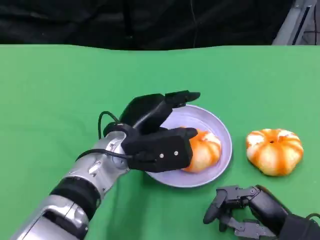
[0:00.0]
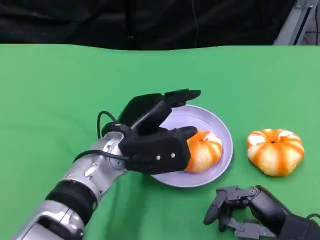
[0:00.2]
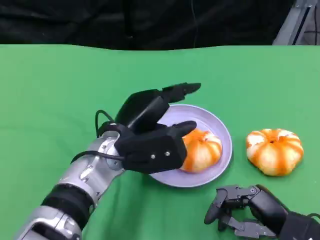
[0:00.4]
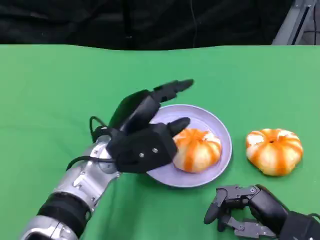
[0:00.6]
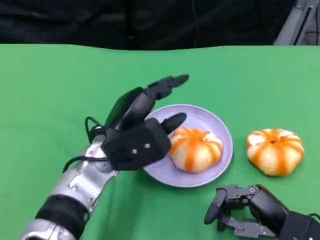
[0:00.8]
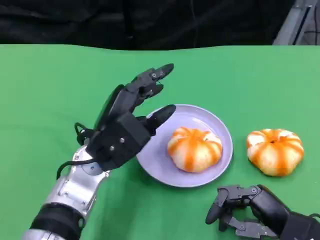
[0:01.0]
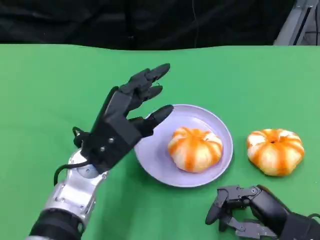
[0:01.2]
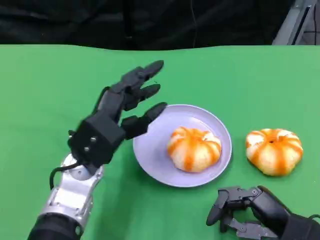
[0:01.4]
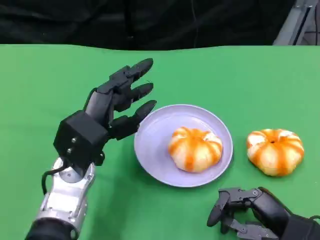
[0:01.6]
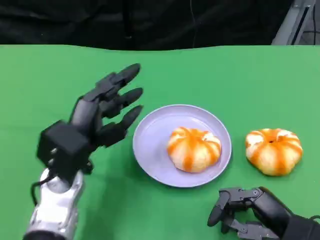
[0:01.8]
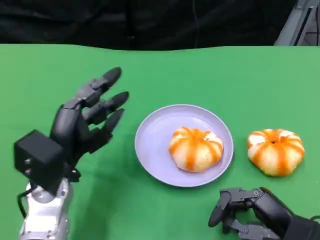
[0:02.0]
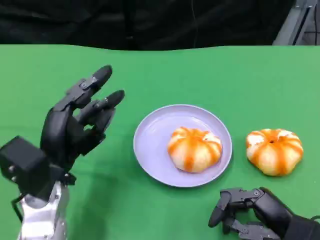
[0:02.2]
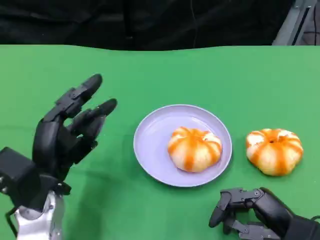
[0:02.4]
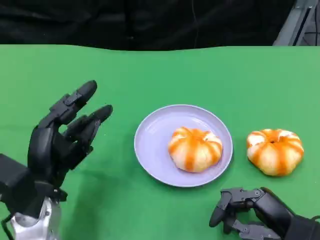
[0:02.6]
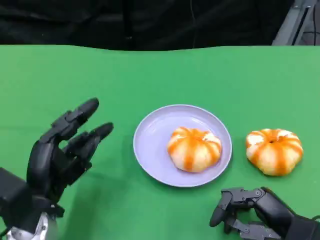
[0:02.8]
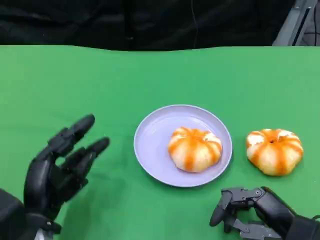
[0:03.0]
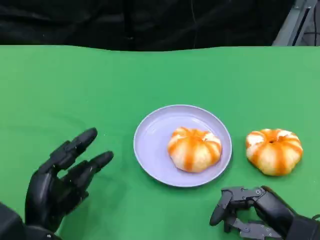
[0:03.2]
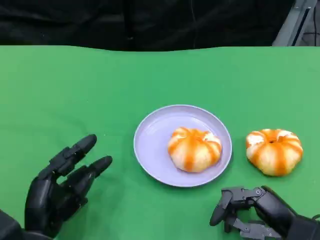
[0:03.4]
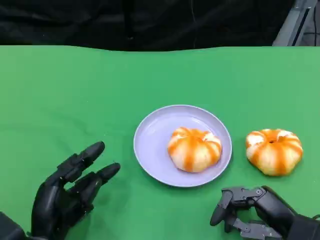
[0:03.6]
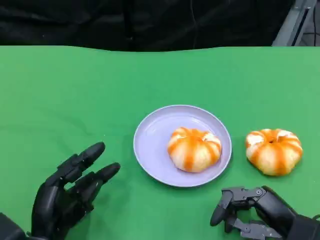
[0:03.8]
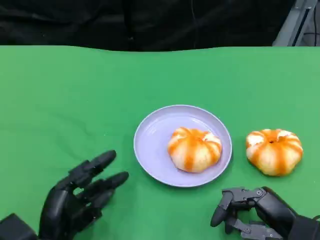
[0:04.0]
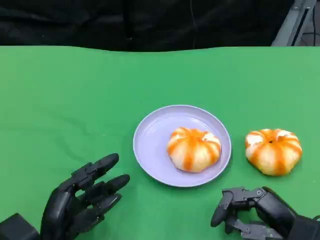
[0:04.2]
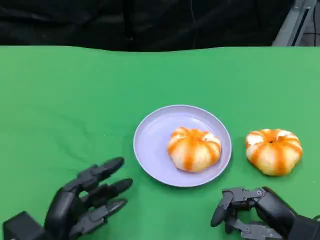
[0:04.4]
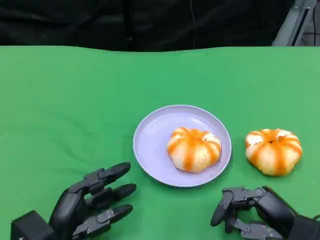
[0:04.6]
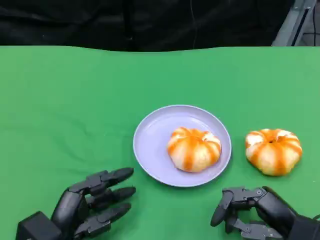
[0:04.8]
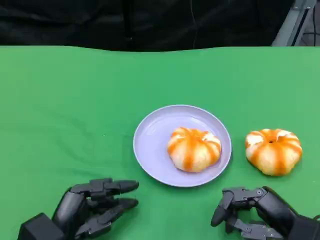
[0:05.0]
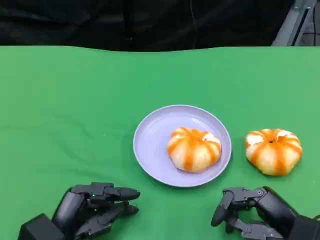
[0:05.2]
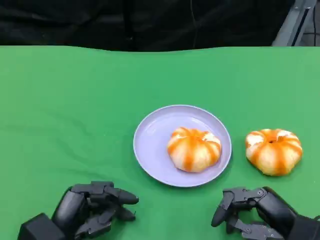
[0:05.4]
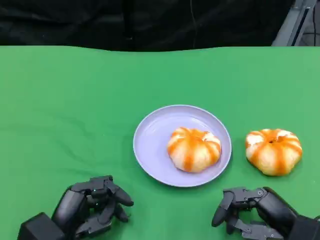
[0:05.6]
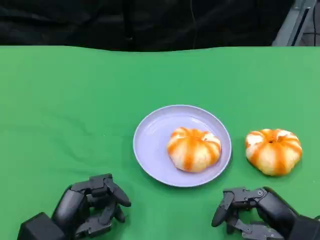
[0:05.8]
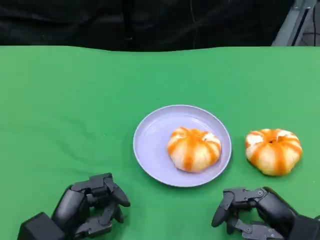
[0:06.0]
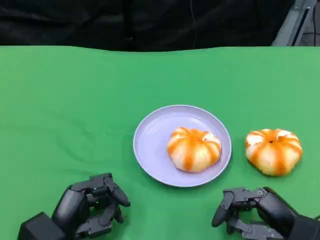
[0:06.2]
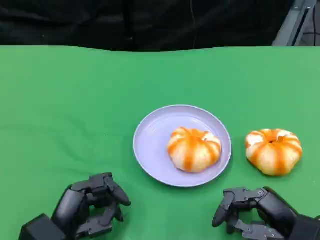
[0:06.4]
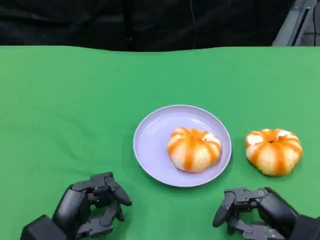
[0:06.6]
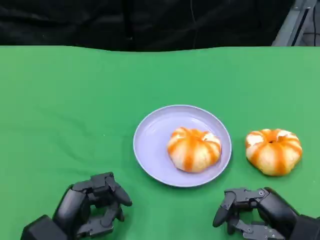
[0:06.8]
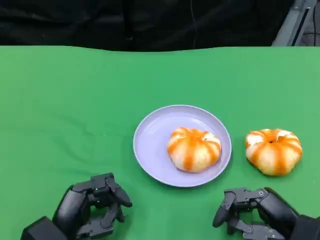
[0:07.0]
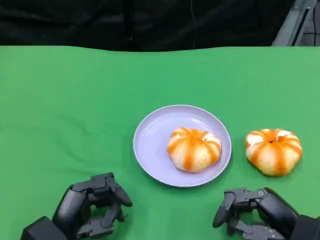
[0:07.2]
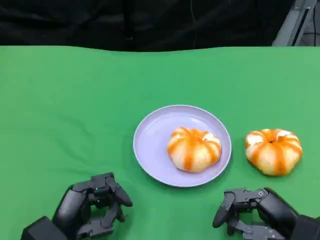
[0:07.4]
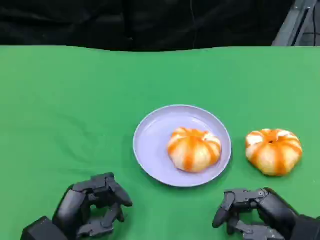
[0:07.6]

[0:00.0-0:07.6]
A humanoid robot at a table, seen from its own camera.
Task of the whole recording: Grasp the bread from the table and place it into the plate.
0:00.0 to 0:01.6: The left hand moves to the left, approximately 5 cm.
0:01.6 to 0:03.0: The left hand heads backward, downward and to the left, covering some 10 cm.
0:03.0 to 0:06.0: The hands stay close to where they were, moving slightly.
0:06.0 to 0:07.6: Both hands stay about where they are.

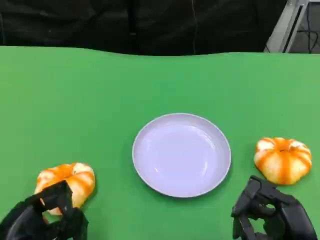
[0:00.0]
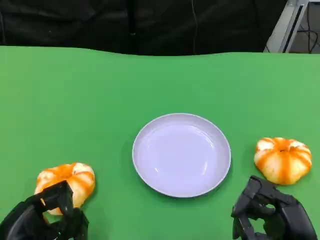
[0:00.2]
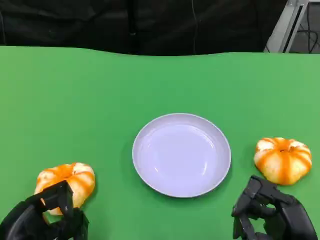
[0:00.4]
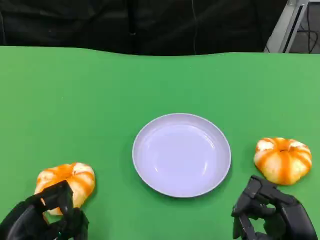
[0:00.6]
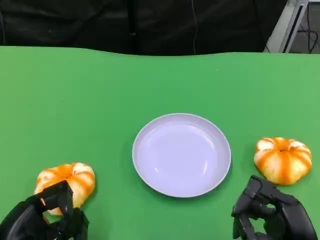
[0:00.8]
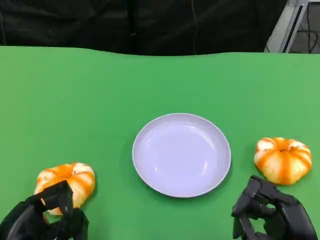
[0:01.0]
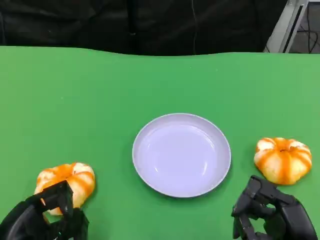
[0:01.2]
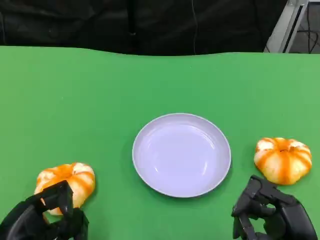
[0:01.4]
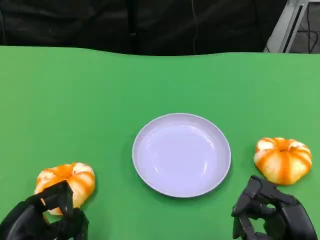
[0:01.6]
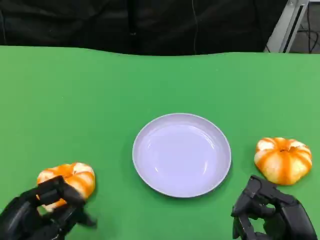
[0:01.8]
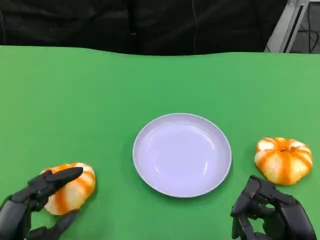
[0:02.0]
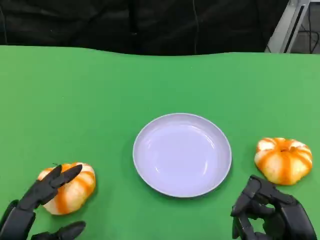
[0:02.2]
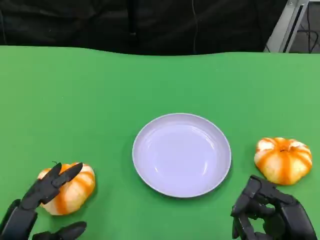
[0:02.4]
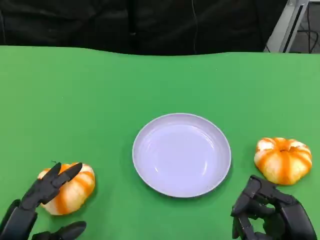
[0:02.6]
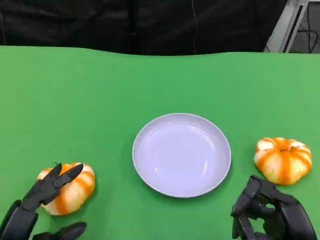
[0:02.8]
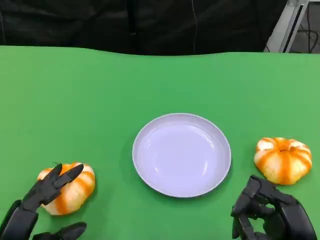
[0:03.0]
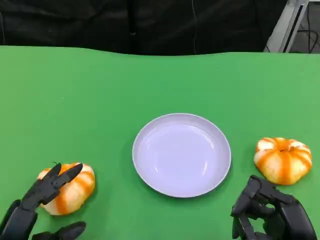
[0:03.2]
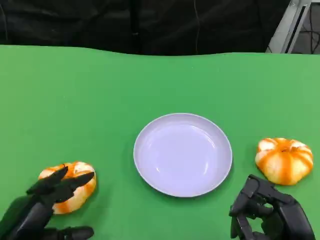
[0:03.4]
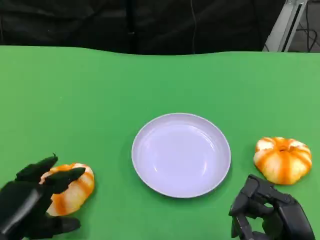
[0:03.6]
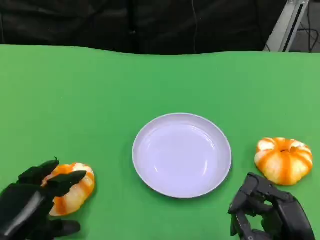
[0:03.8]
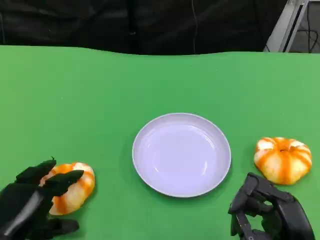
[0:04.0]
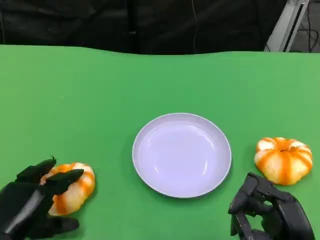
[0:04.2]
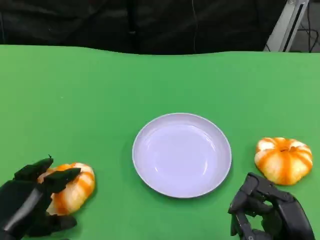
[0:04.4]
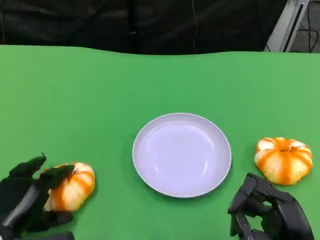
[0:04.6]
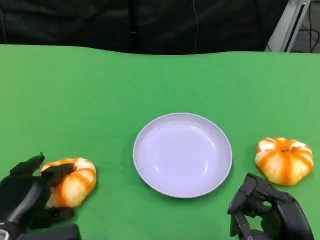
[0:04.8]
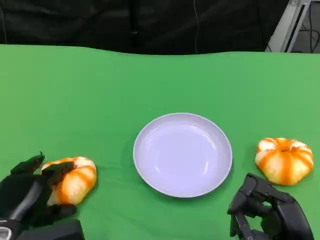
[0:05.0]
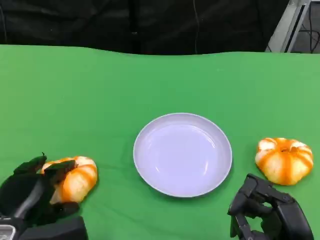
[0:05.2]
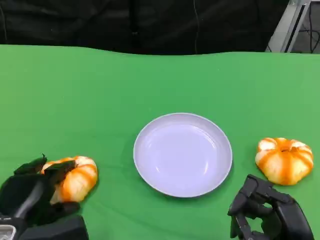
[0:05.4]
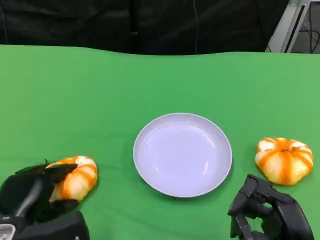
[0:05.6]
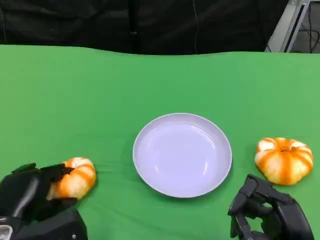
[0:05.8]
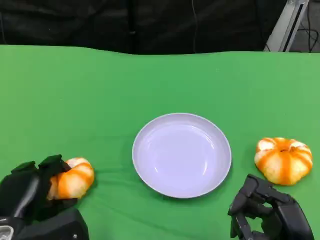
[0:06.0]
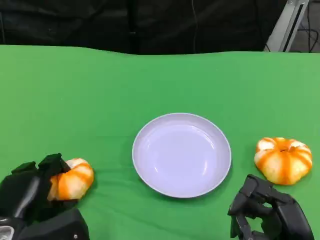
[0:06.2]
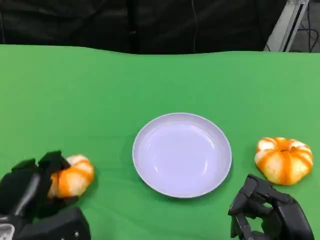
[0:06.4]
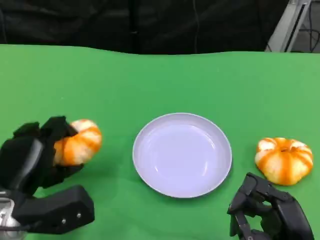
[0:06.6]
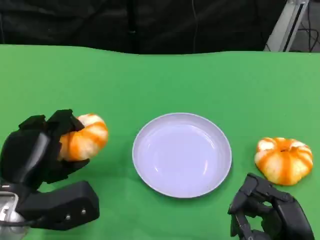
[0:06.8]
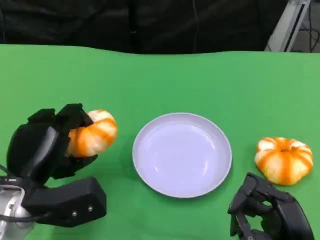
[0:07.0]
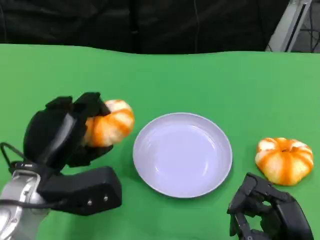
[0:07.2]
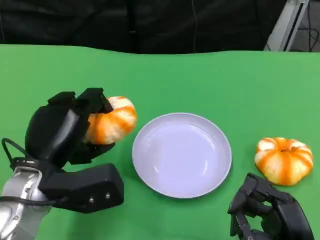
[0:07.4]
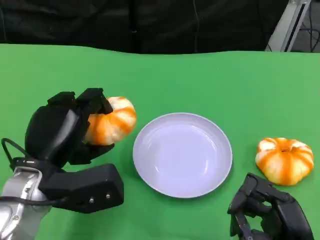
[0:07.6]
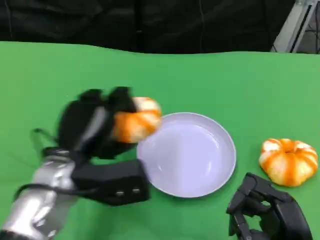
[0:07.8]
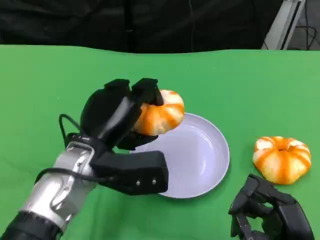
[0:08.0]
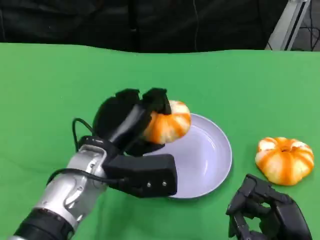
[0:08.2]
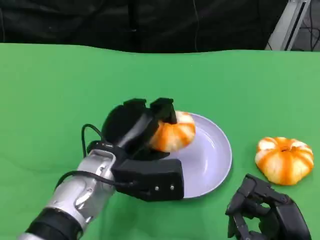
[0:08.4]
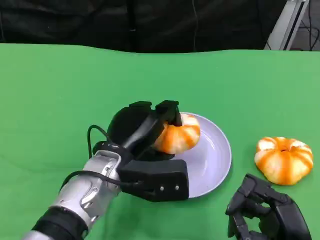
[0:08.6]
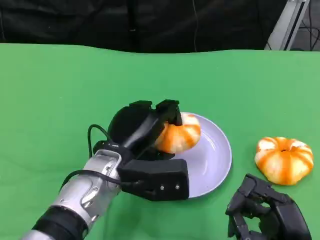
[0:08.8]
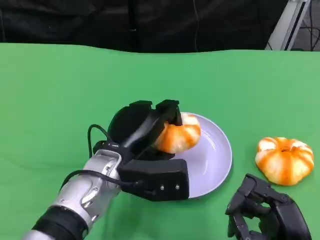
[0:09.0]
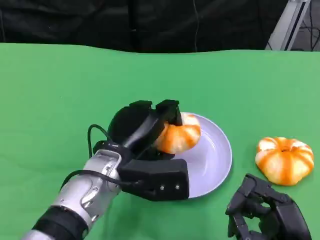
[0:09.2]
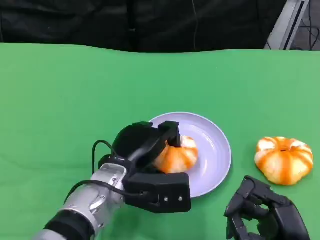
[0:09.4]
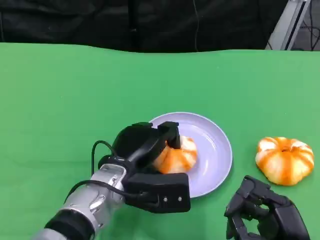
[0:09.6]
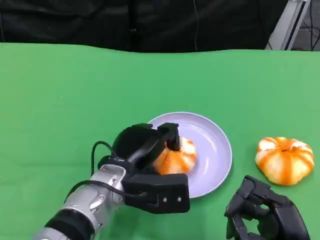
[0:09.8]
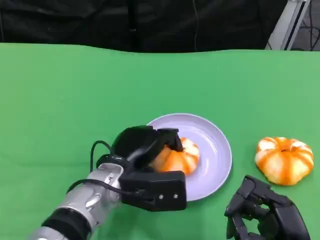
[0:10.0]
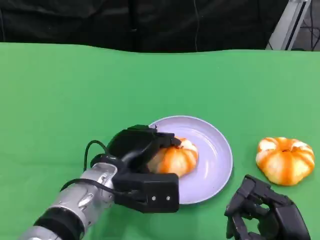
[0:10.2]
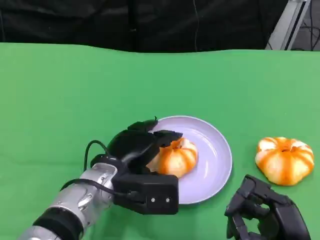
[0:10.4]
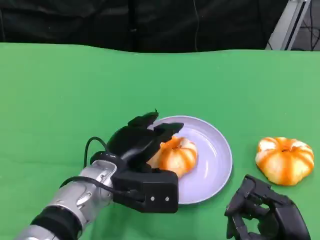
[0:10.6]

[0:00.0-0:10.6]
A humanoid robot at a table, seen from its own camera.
Task of the whole recording: Grasp the bread from the table and place it into the plate.
0:00.0 to 0:01.6: Both hands stay about where they are.
0:03.0 to 0:04.6: The left hand moves forward, roughly 5 cm.
0:04.6 to 0:06.0: The hands move only a little.
0:06.0 to 0:07.6: The left hand goes roughly 10 cm upward.
0:07.6 to 0:09.0: The left hand shifts approximately 10 cm to the right.
0:09.0 to 0:10.6: The hands move only a little.

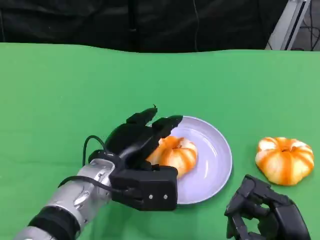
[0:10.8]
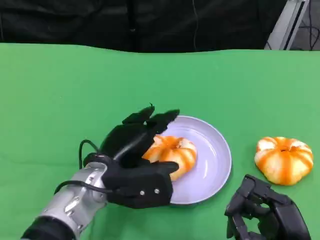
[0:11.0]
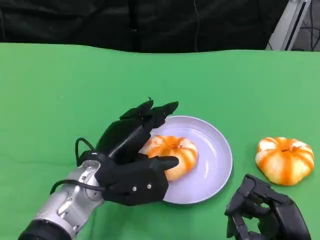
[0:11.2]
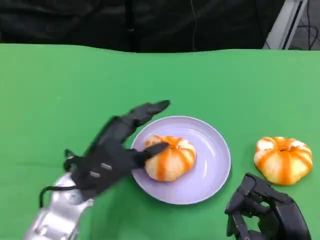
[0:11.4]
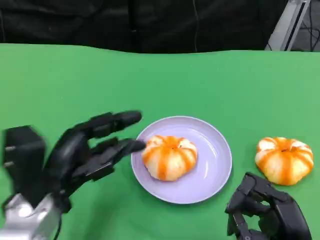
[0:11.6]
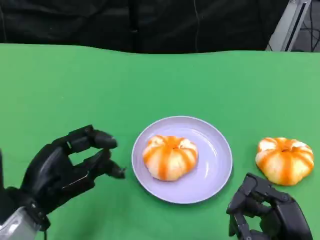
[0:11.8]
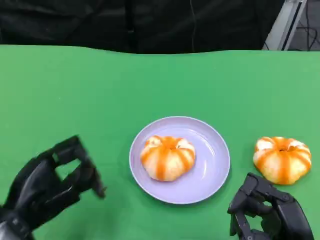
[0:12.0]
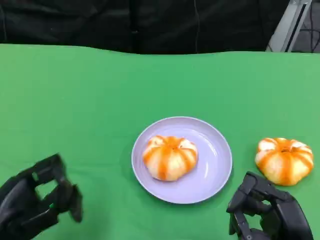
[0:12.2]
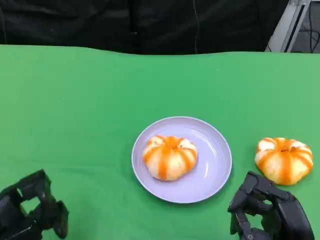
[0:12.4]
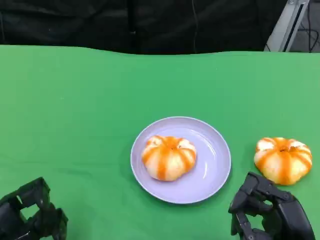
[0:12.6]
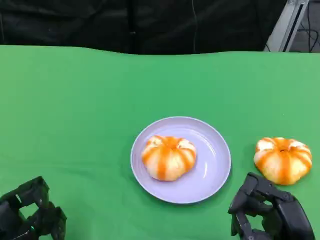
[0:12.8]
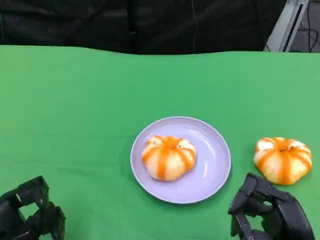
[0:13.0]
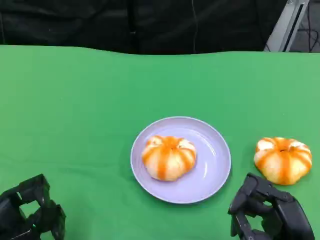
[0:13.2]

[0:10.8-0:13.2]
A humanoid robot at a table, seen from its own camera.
Task of the whole recording: Grasp the bread from the table and place it into the plate.
0:10.8 to 0:12.0: The left hand shifts some 15 cm to the left and backward.
0:12.0 to 0:13.2: The left hand ends up approximately 5 cm from where it was.

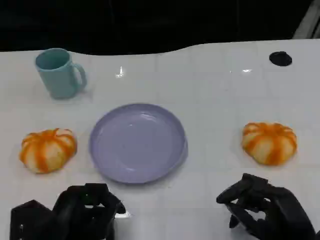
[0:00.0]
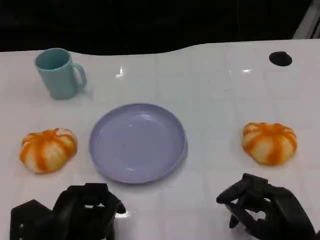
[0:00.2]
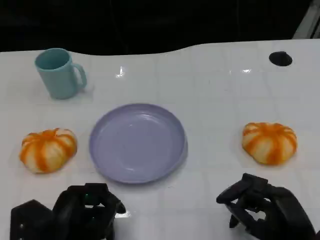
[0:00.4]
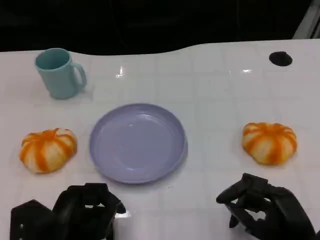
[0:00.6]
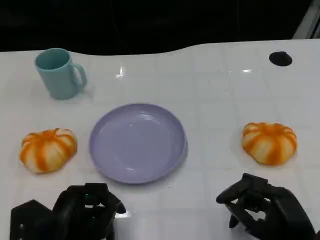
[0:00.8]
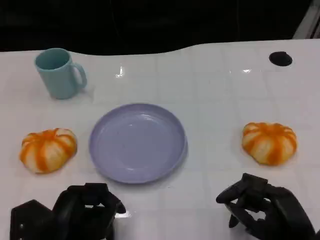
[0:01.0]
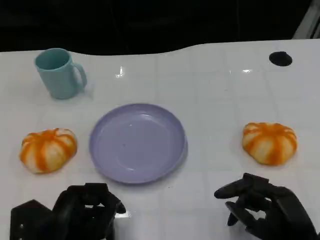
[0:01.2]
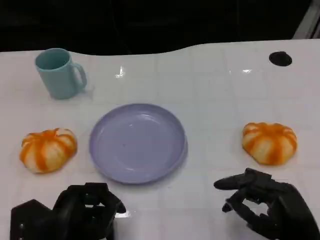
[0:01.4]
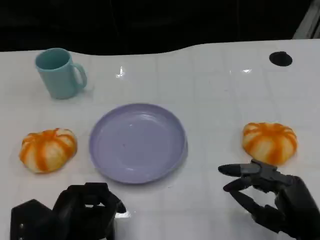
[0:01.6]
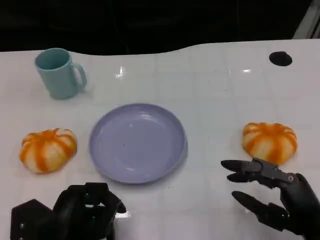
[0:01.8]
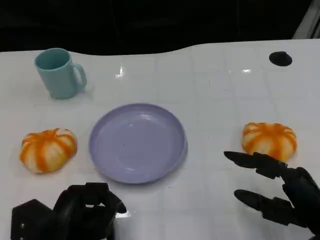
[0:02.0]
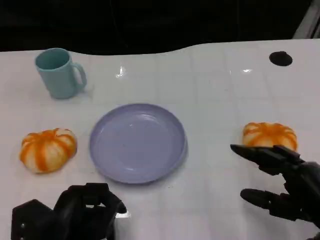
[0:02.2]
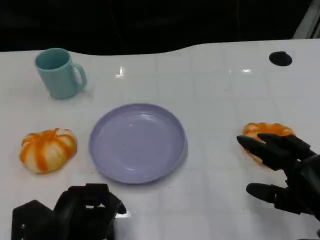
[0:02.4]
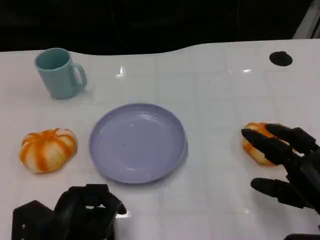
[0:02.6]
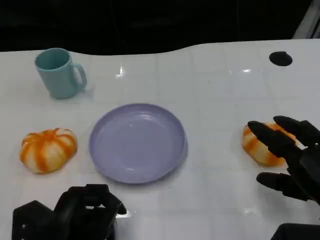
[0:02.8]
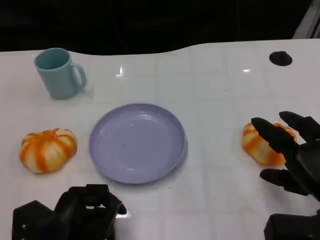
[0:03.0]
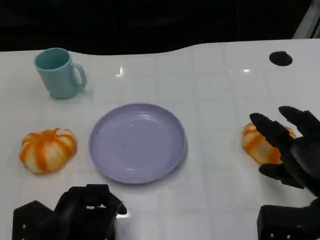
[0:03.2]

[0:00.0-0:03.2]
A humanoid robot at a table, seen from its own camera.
Task of the whole recording: Grasp the bread from the table and place it into the plate.
0:00.0 to 0:01.6: The hands move only a little.
0:01.6 to 0:03.2: The right hand moves forward, about 5 cm.
